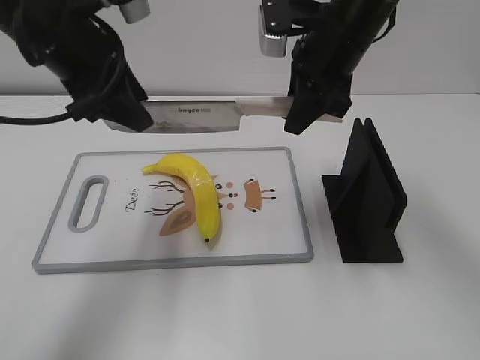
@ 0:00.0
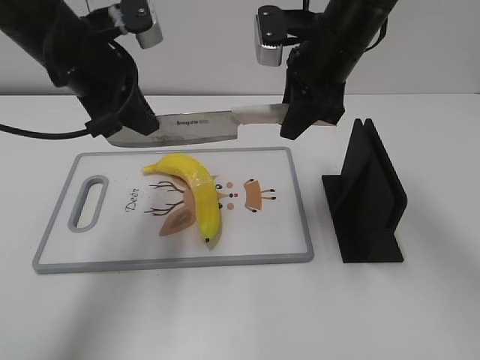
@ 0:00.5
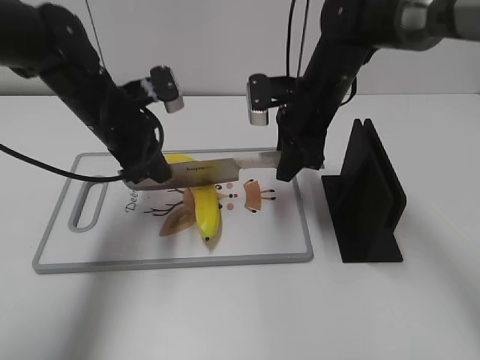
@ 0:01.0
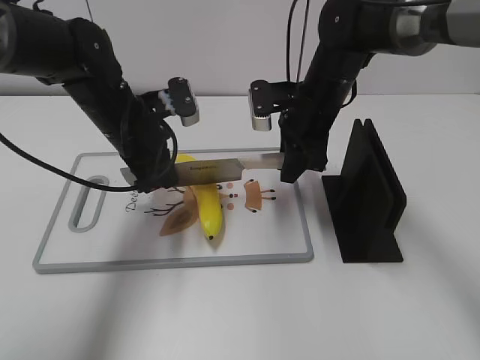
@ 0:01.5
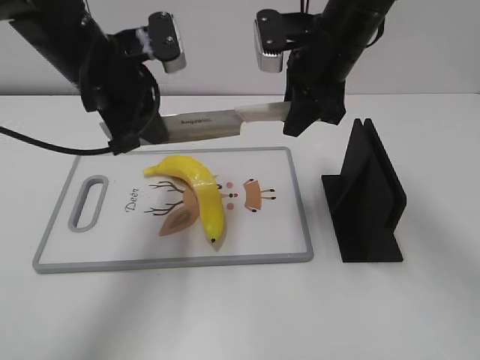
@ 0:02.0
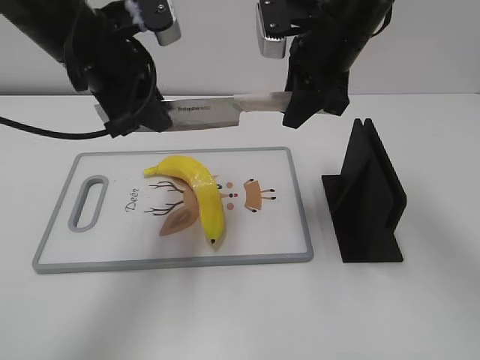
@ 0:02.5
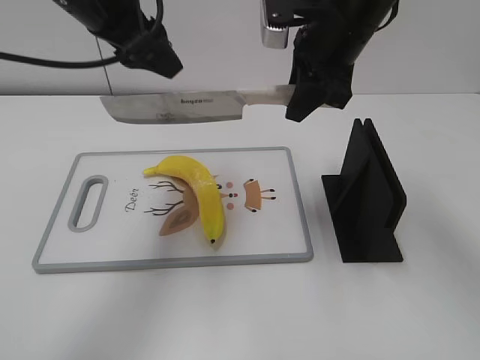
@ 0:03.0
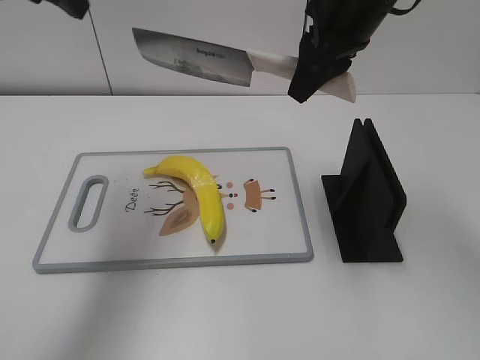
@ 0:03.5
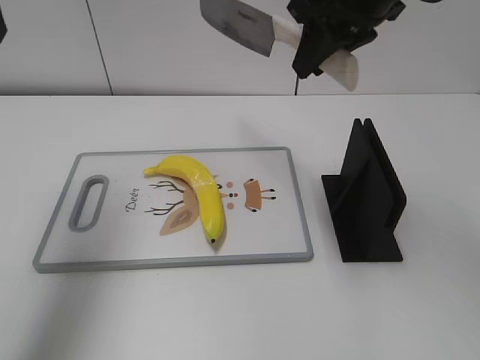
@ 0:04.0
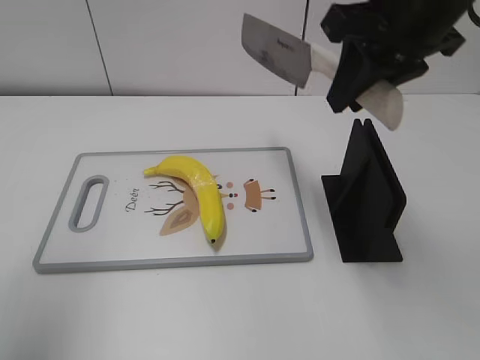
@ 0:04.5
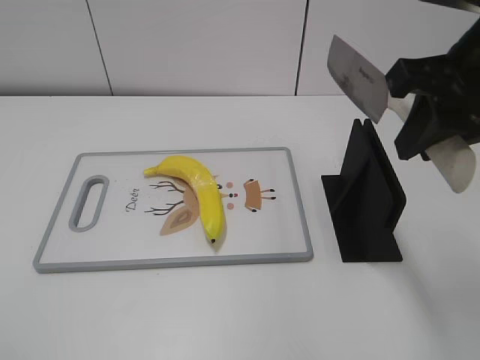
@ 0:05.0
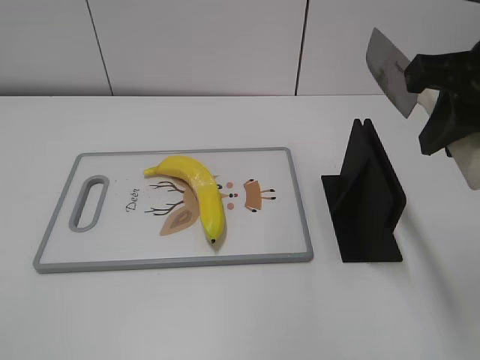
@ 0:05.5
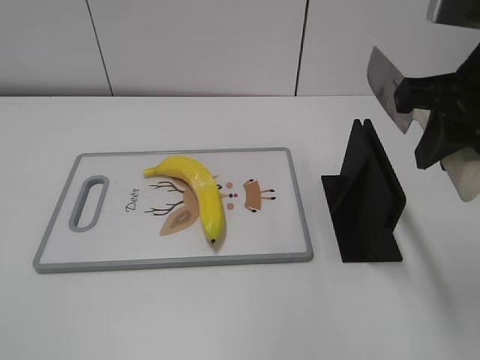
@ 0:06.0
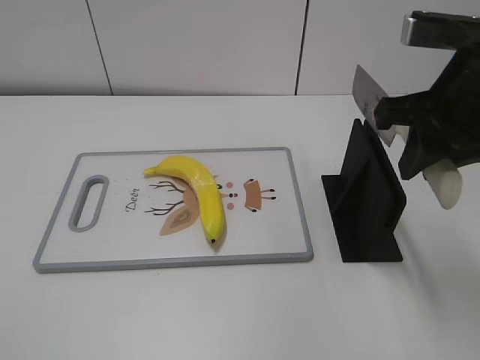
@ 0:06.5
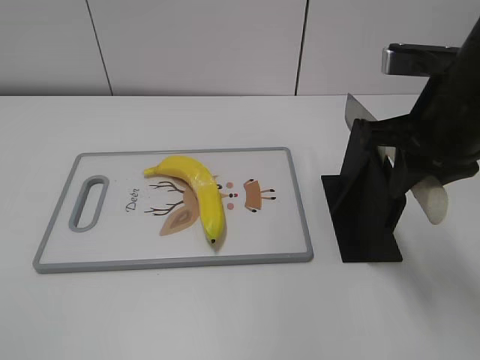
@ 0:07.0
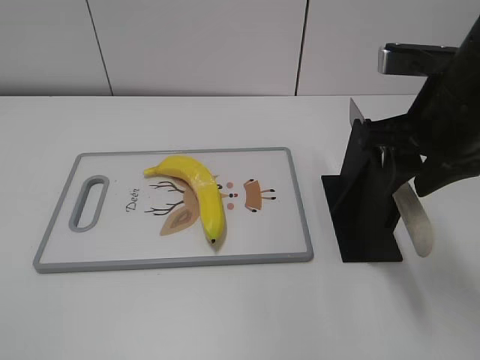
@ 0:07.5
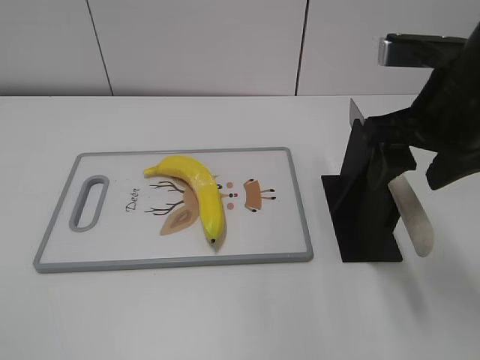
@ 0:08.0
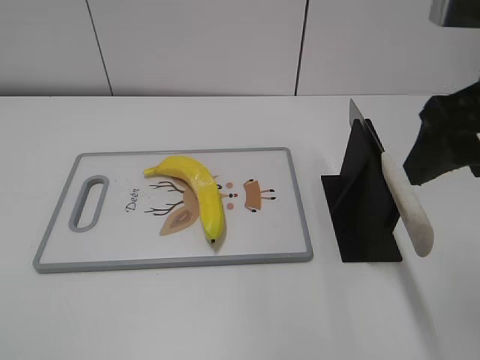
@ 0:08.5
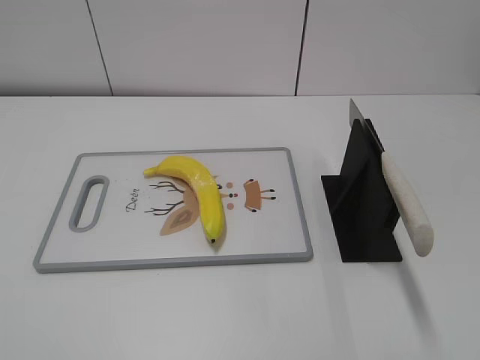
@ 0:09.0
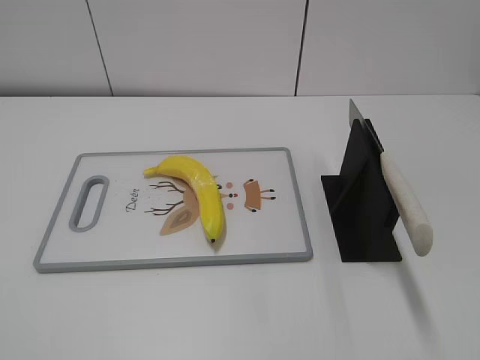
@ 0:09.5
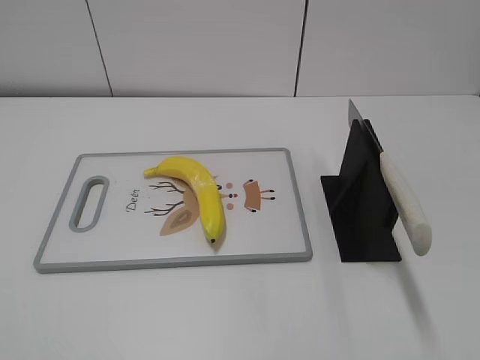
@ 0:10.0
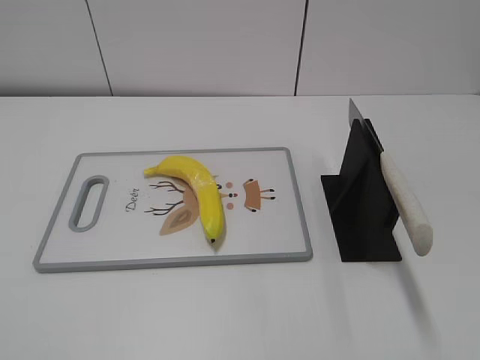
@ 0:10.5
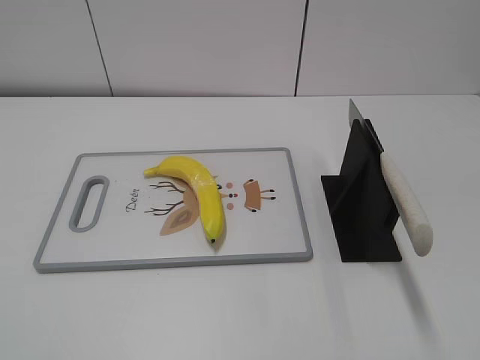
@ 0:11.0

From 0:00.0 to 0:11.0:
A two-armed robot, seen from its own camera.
Task of the whole recording: cut plastic banana.
Step, from 0:00.0 to 0:02.5: Lift the knife with your right hand.
Step, from 0:03.0 to 0:04.0: Cut the banana with your right hand.
Step, from 0:04.5 to 0:05.0: Lift the knife with your right hand.
Step, from 0:05.5 to 0:11.0: Place the knife on the storage rack with your right hand.
From 0:00.0 to 0:02.0: The right gripper moves approximately 10 cm downward and comes back, while the left gripper travels downward and back again, roughly 15 cm each way, and closes up.
From 0:02.0 to 0:03.5: The right gripper travels upward by roughly 5 cm. The left gripper heads upward and to the left, covering approximately 15 cm, and opens up.
From 0:03.5 to 0:05.5: The left gripper is displaced backward by some 35 cm, while the right gripper goes some 15 cm backward and to the right.
From 0:05.5 to 0:07.5: The right gripper goes approximately 5 cm downward, and opens up.
From 0:07.5 to 0:09.0: The right gripper travels backward and to the right by approximately 20 cm, and opens its fingers.
